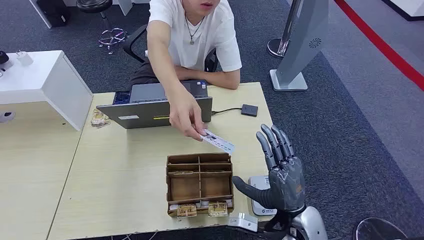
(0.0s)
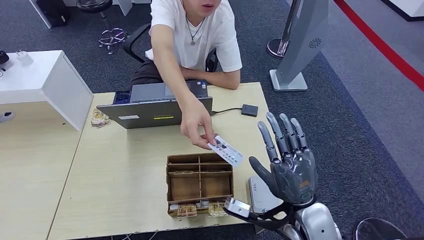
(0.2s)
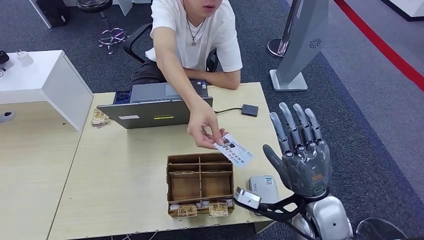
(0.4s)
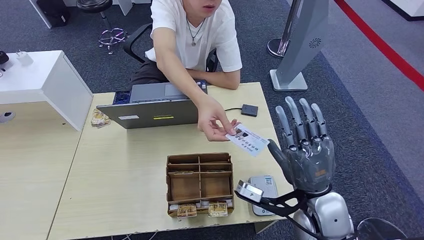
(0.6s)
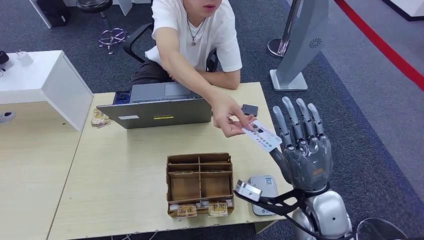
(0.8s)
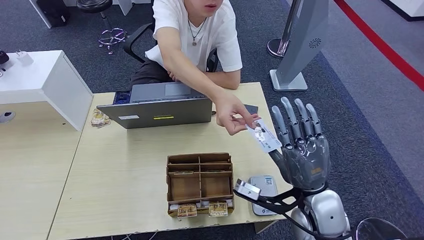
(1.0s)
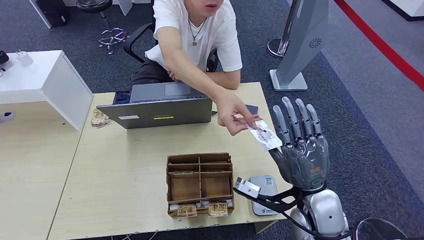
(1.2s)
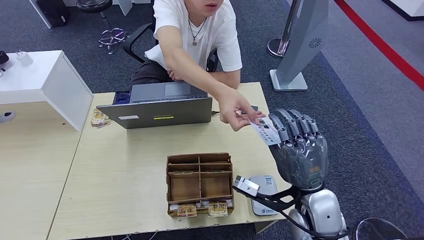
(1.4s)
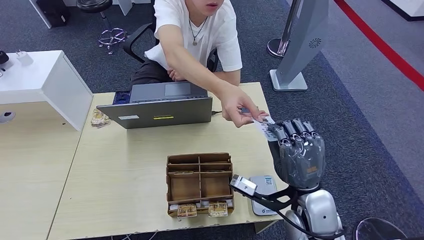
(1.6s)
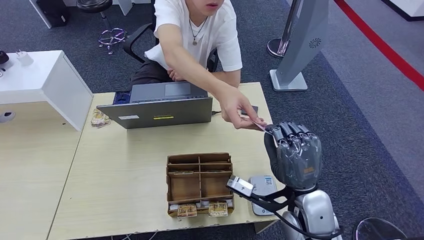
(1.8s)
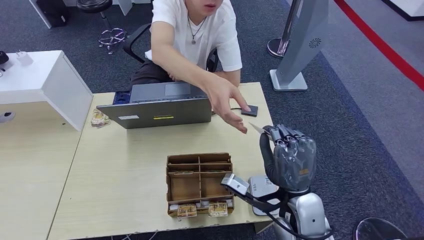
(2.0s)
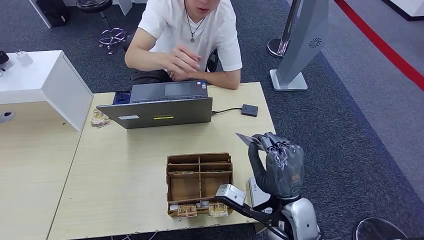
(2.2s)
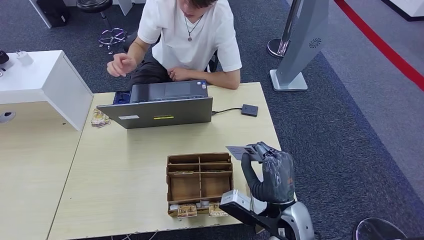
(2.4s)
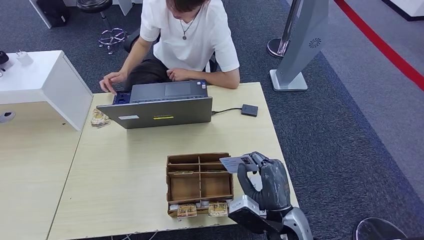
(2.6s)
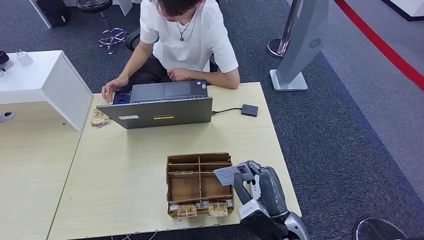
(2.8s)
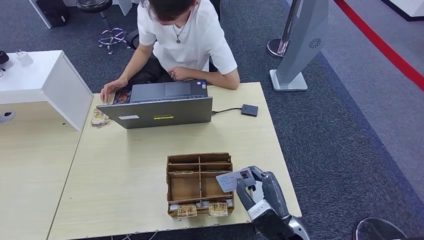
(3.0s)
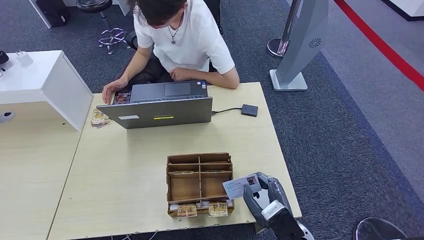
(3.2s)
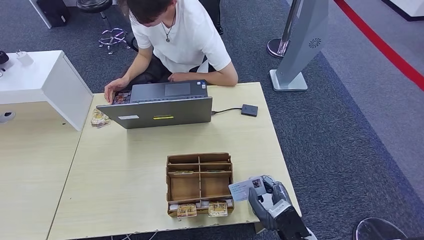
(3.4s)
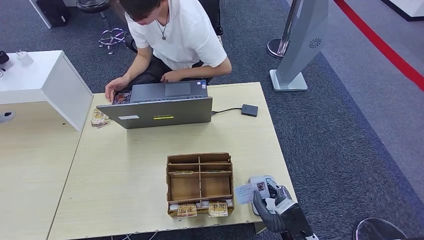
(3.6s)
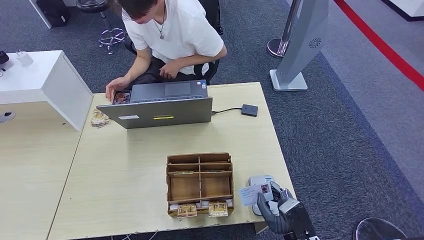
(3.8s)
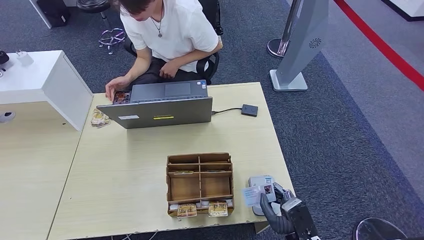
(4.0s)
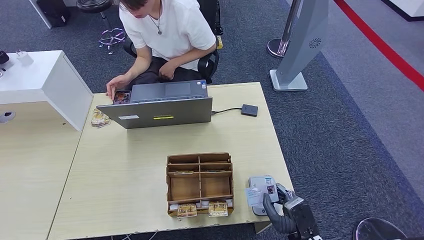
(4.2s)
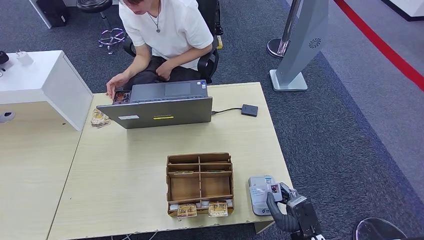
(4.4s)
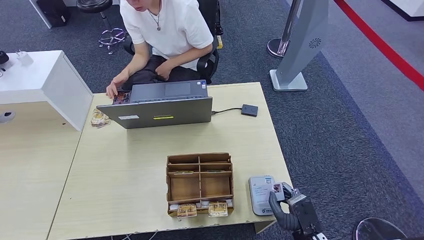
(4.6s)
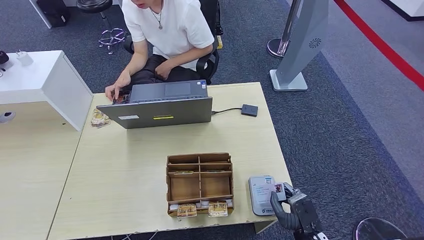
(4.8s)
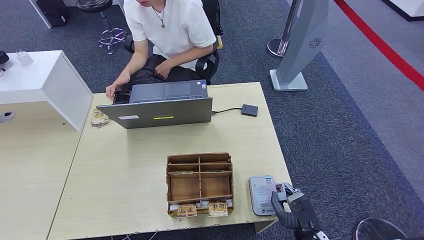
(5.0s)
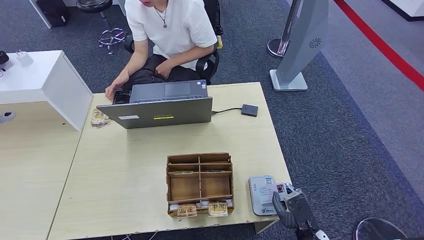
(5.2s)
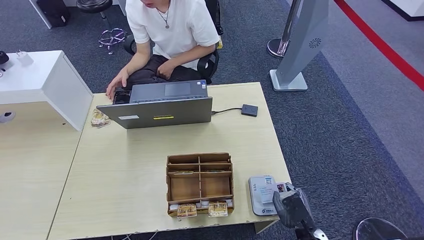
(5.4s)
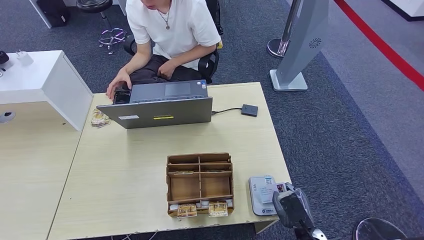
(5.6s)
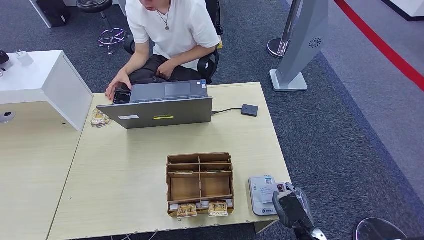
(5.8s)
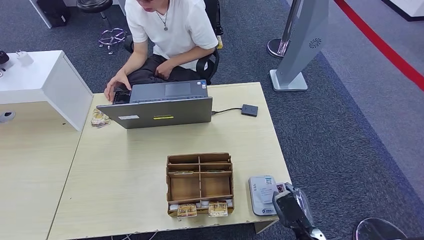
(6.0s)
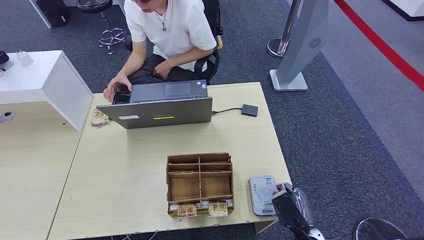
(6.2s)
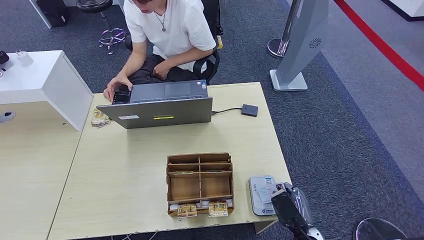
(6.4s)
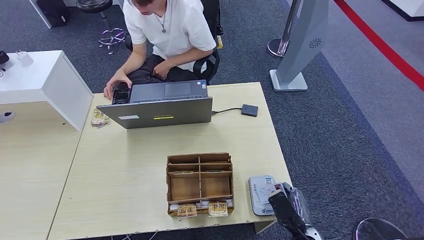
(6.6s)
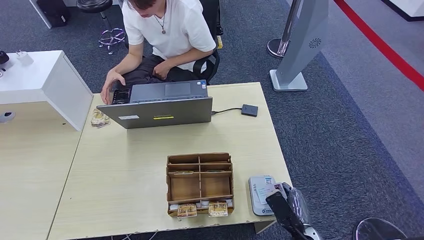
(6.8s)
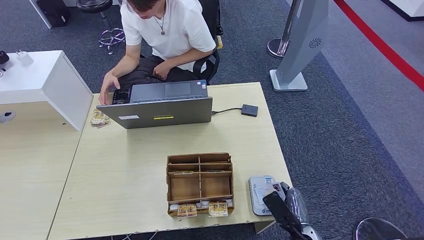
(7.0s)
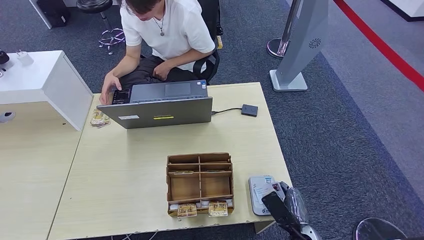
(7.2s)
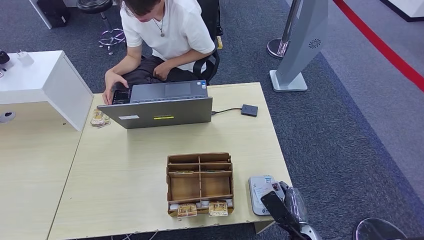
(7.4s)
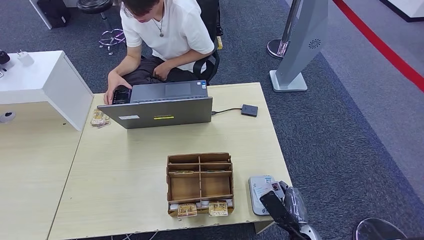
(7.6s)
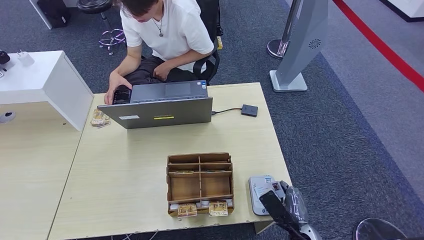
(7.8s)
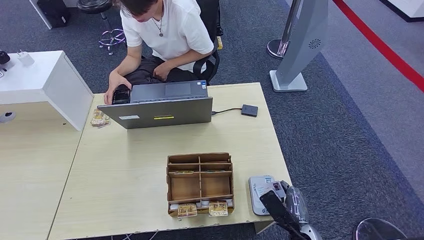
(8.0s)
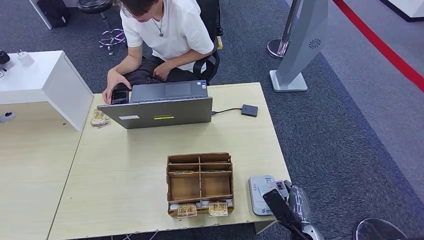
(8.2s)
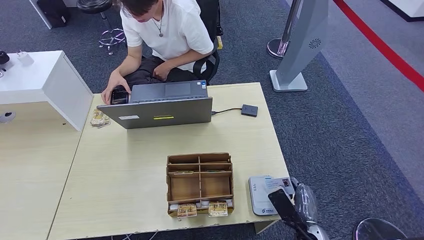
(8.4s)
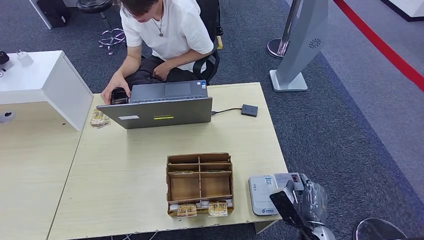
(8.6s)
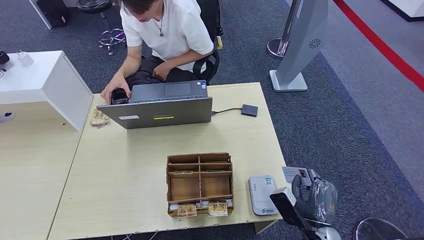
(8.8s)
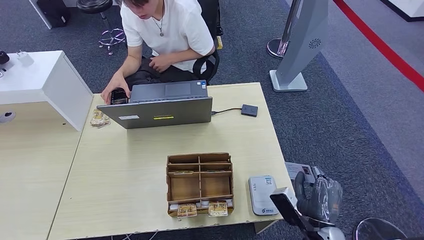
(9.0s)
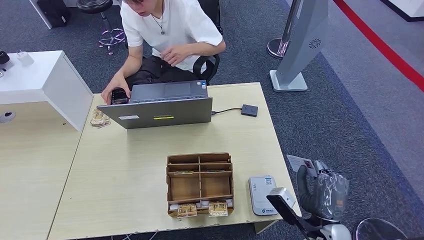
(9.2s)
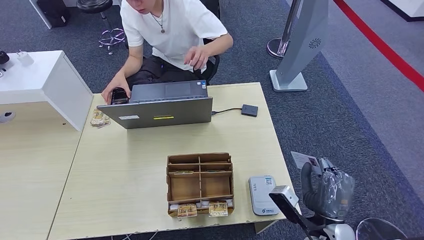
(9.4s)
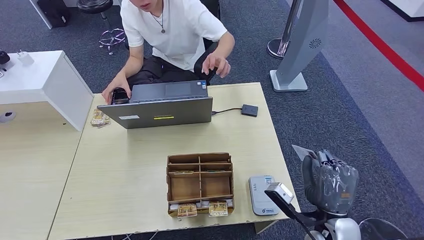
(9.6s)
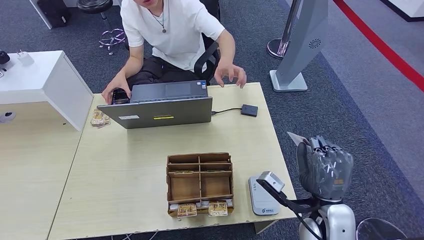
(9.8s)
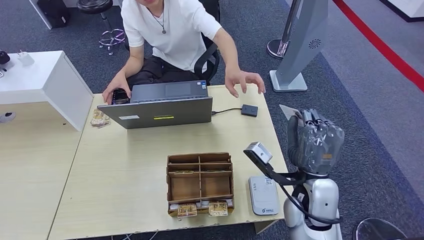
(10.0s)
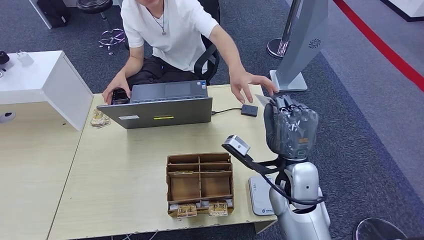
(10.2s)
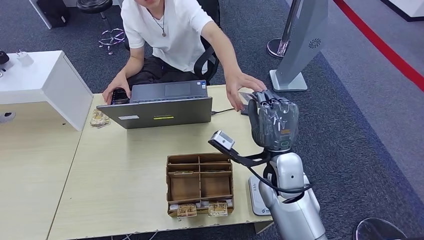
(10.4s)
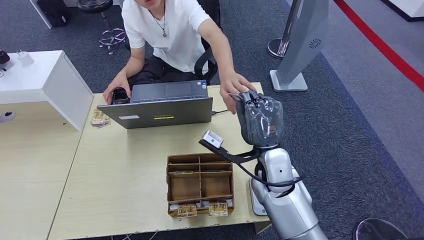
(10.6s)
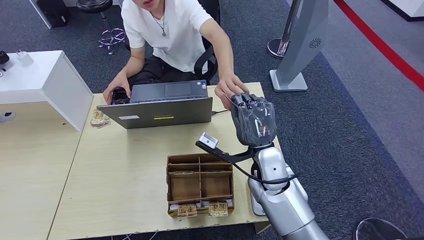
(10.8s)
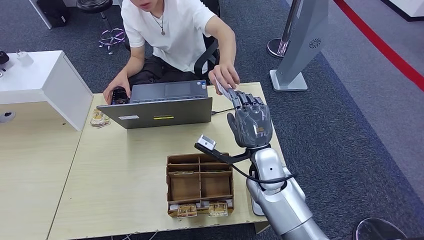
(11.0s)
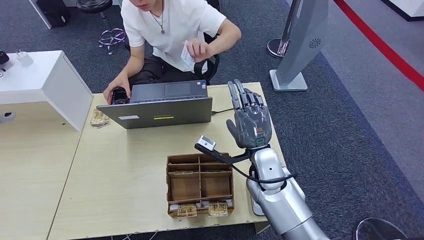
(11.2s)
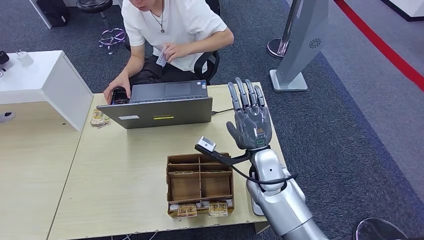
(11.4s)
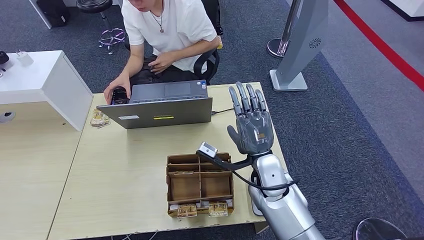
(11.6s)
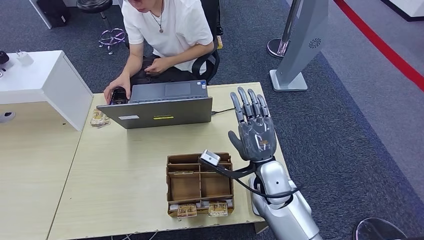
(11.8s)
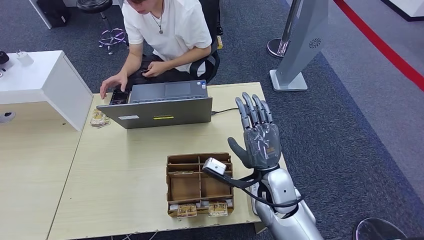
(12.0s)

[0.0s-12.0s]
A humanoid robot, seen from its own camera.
Step, 0.0s to 2.8s: Take the ID card from the person's hand.
Step, 3.0s to 9.6s: Place the ID card on the card reader.
Step, 10.0s to 11.8s: Hand the ID card to the person.
1.6s to 3.0s: The right hand travels downward and backward by roughly 10 cm.
3.0s to 4.4s: The right hand is displaced downward and to the right by roughly 10 cm.
6.0s to 7.6s: The hands make only small movements.
7.6s to 9.0s: The right hand moves upward, about 5 cm.
9.0s to 10.4s: The right hand heads forward, upward and to the left, covering approximately 20 cm.
10.4s to 12.0s: The right hand shifts by some 5 cm.

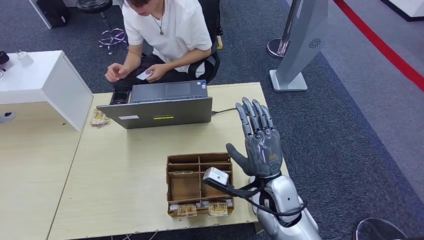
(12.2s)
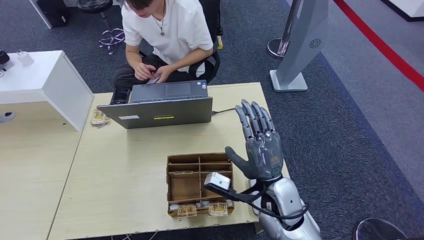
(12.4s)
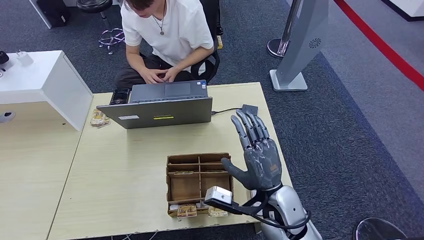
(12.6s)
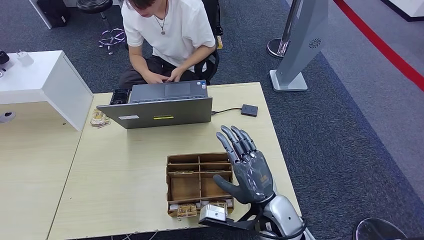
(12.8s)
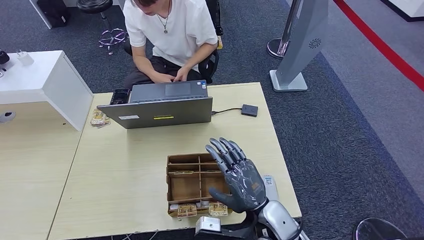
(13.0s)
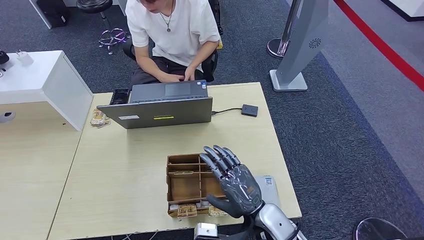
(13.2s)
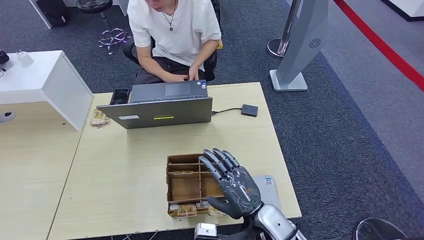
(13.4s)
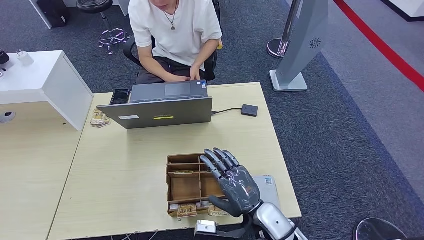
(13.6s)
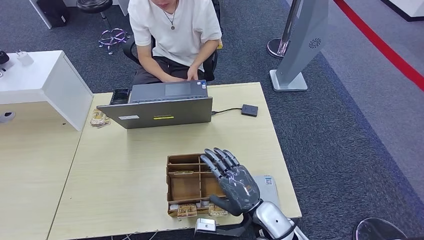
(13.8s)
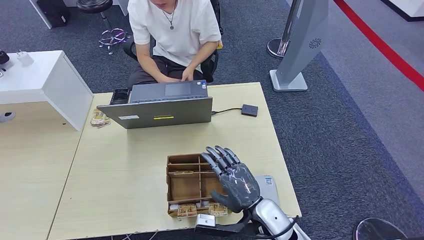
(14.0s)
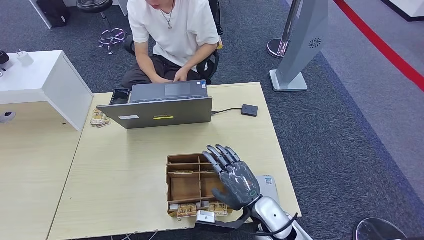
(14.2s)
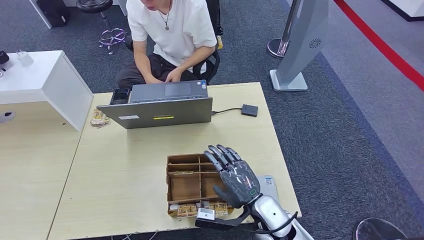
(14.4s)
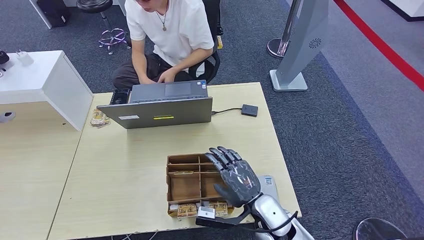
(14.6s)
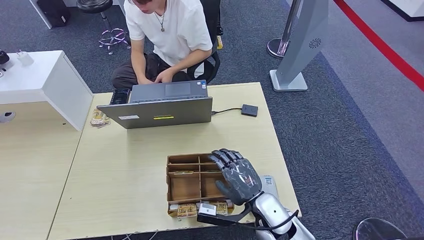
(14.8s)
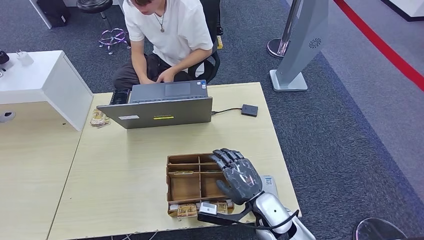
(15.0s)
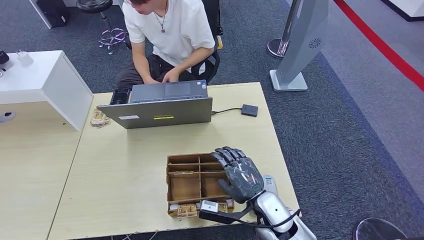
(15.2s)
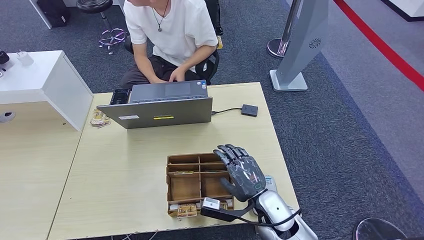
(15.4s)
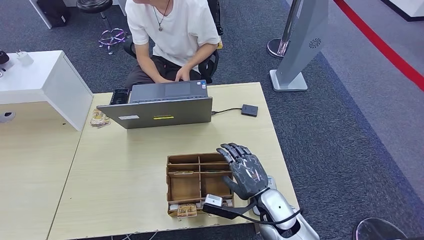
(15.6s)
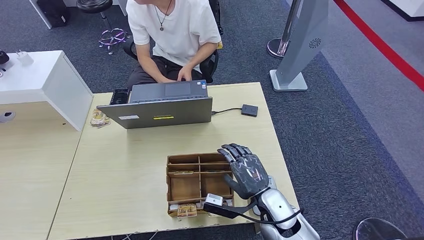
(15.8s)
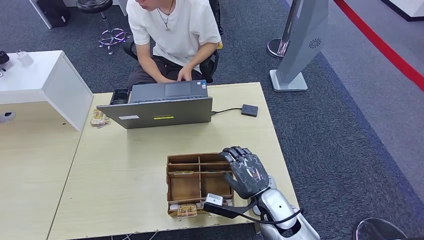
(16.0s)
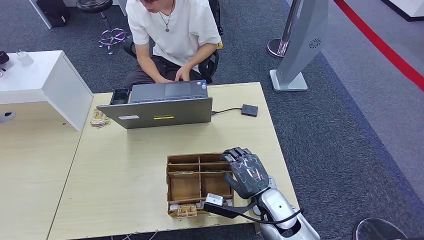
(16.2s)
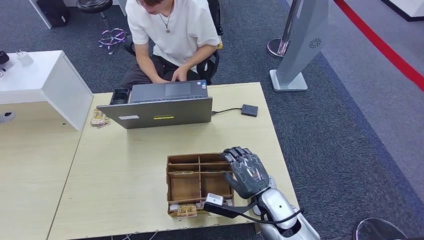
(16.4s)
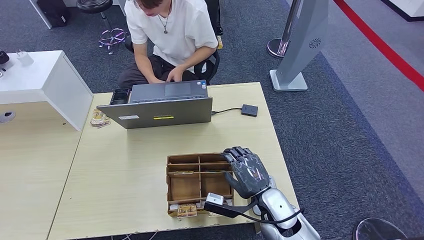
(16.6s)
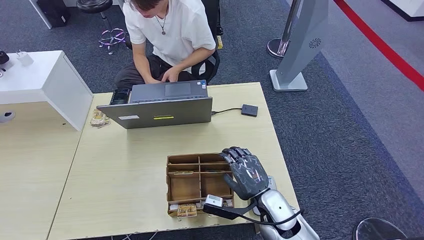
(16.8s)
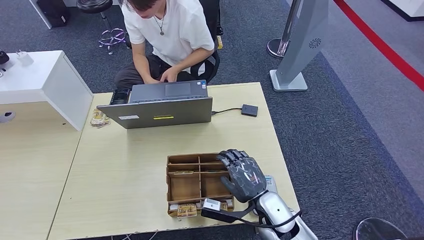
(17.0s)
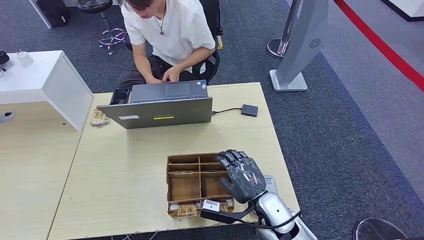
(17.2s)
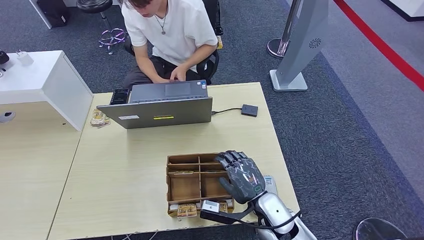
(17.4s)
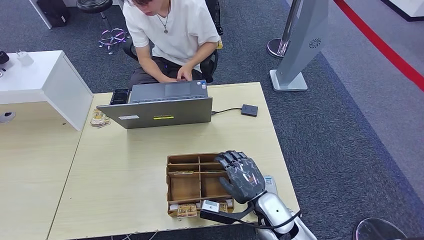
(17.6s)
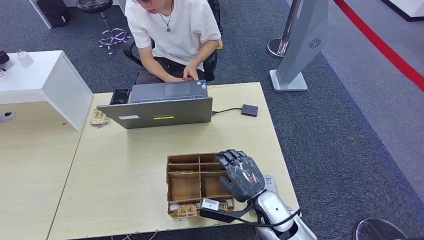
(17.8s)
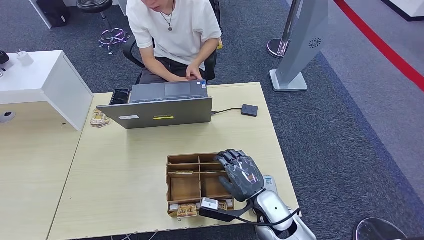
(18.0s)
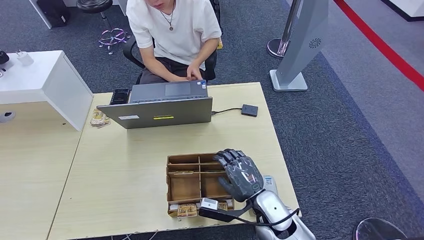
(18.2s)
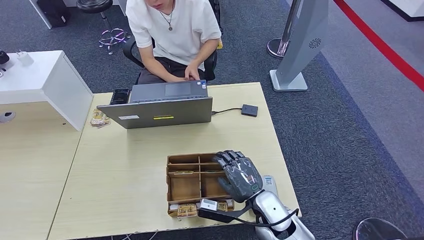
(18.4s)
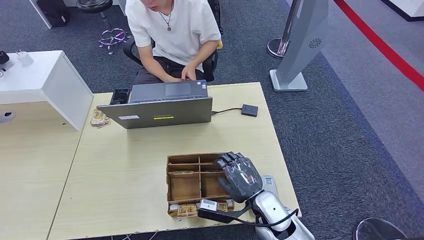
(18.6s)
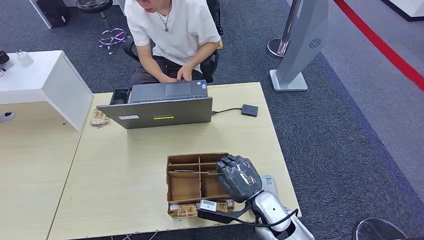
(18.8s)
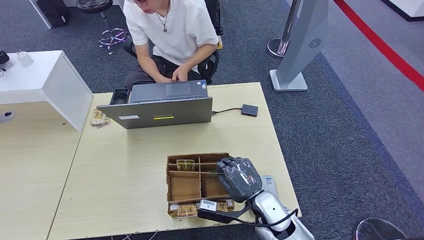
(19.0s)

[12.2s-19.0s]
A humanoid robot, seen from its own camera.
12.2s to 13.6s: The right hand shifts approximately 10 cm downward and backward.
13.6s to 16.2s: The hands move only a little.
16.2s to 17.6s: Both hands stay about where they are.
17.6s to 19.0s: Both hands stay put.
